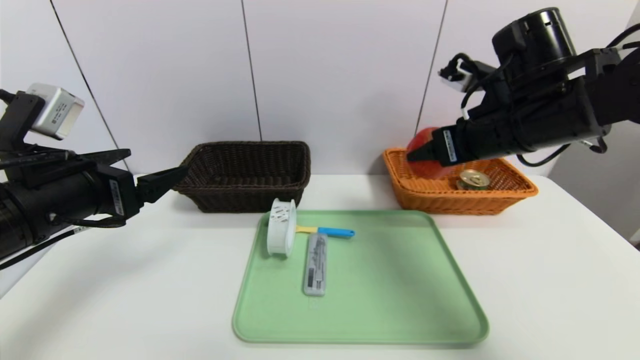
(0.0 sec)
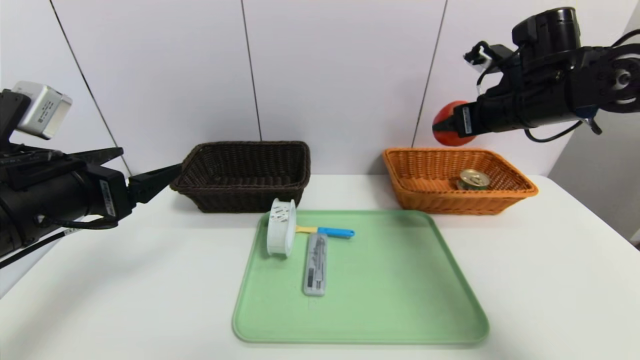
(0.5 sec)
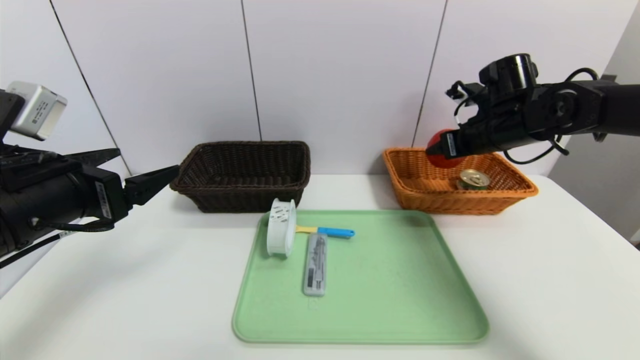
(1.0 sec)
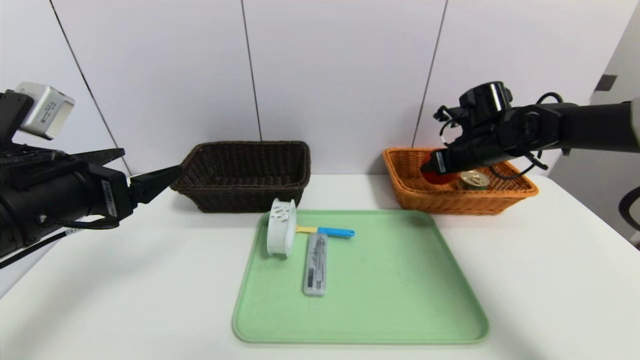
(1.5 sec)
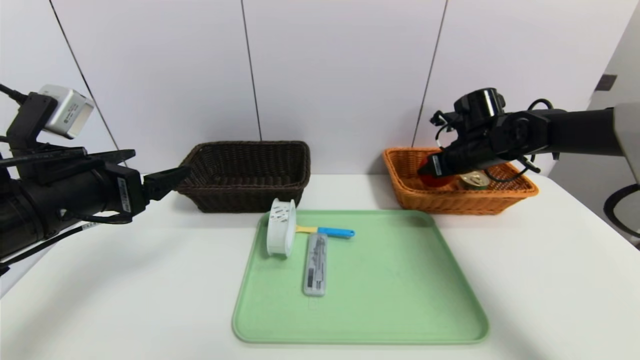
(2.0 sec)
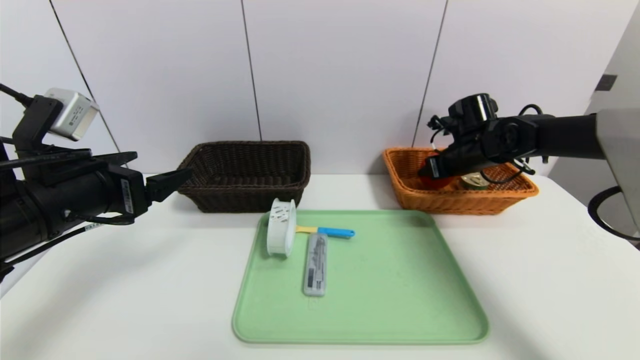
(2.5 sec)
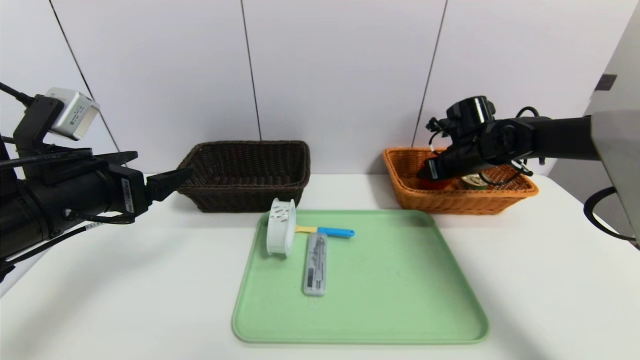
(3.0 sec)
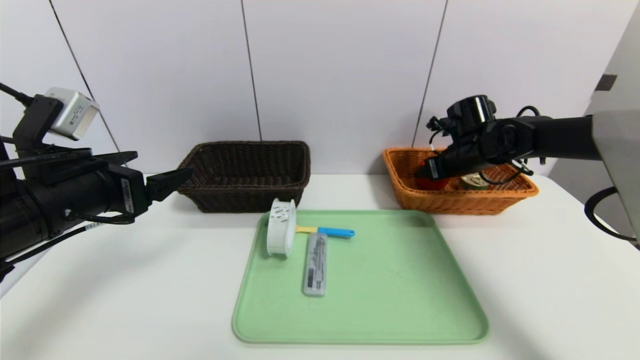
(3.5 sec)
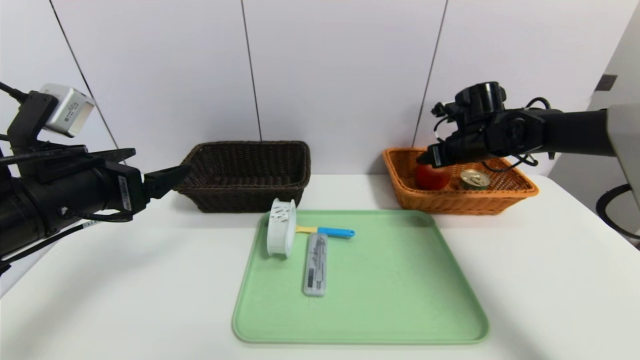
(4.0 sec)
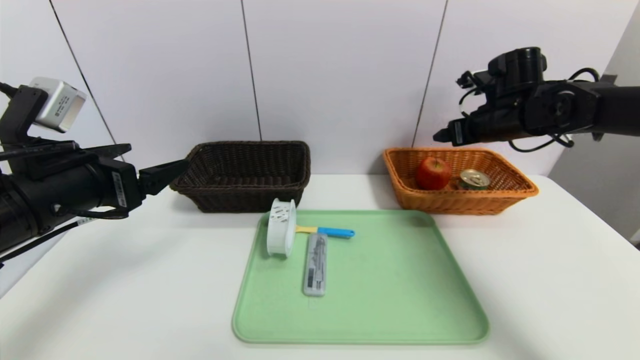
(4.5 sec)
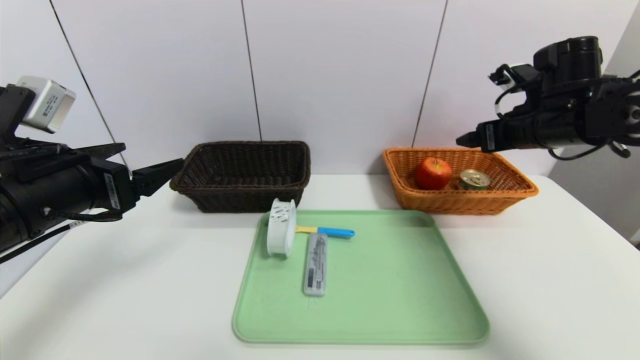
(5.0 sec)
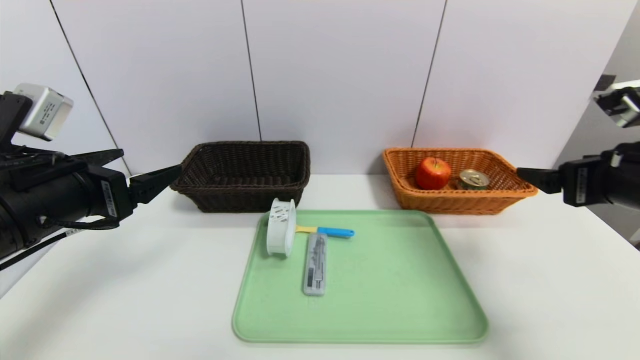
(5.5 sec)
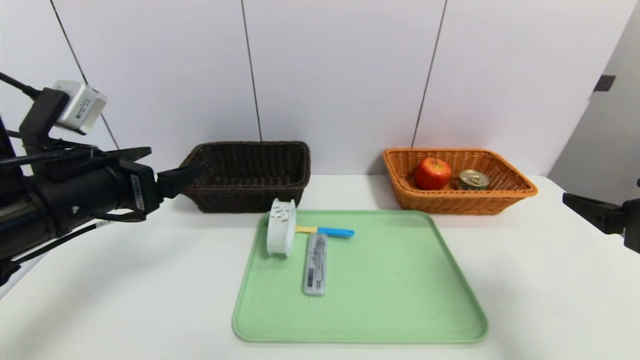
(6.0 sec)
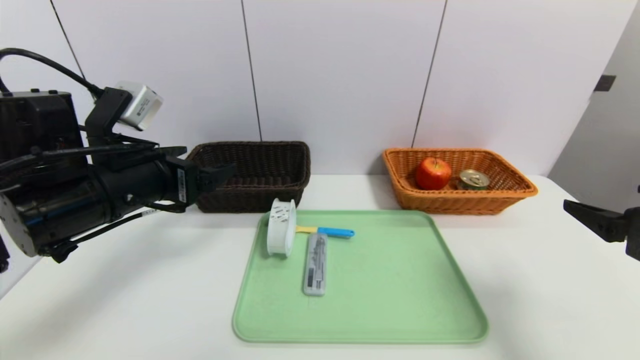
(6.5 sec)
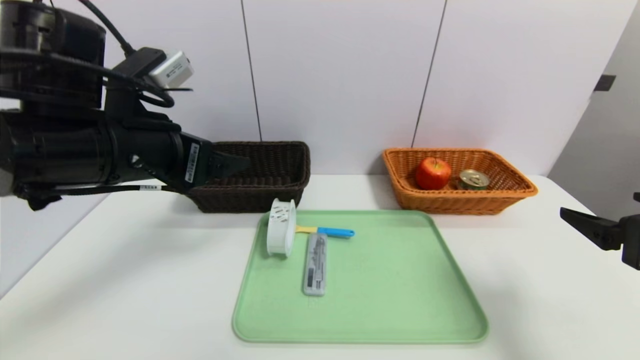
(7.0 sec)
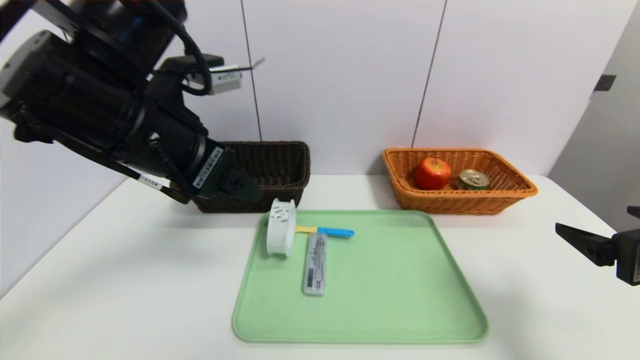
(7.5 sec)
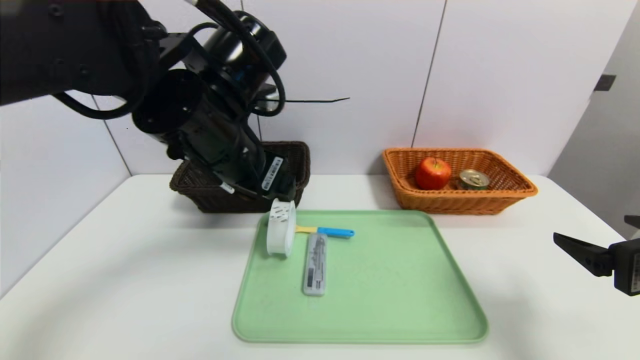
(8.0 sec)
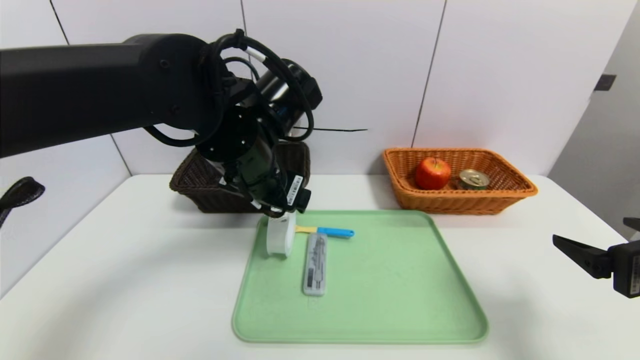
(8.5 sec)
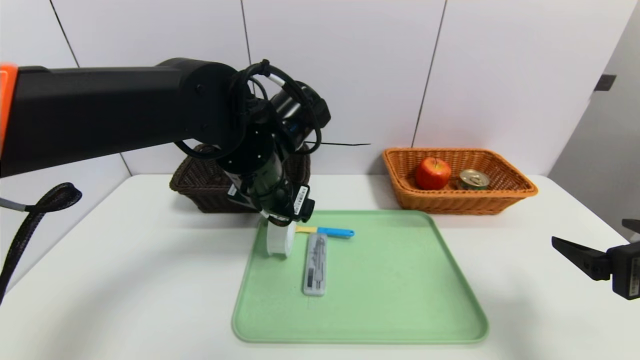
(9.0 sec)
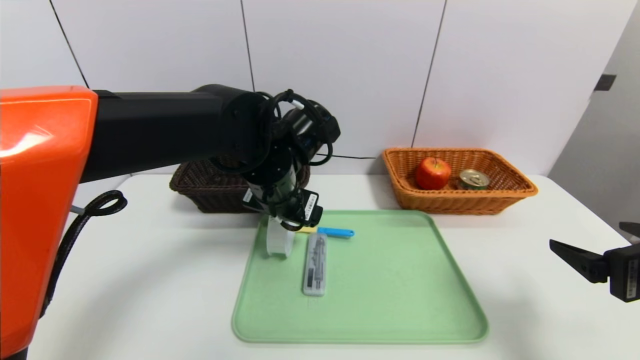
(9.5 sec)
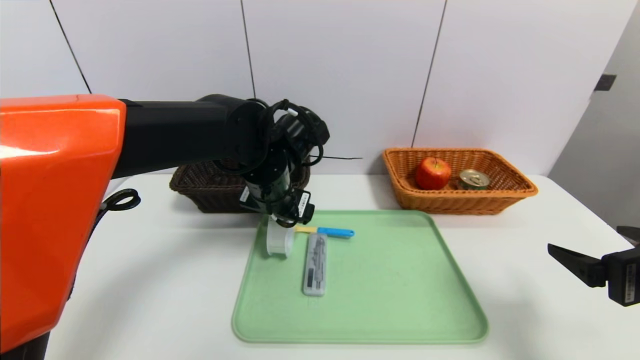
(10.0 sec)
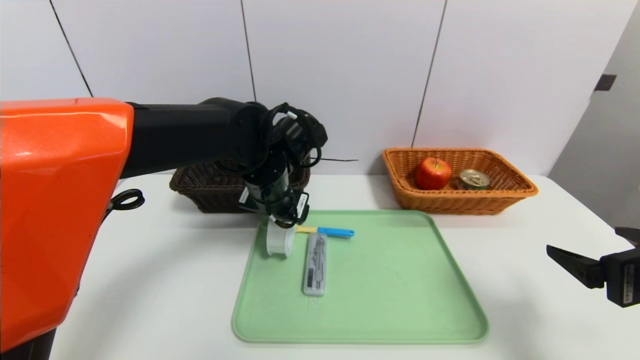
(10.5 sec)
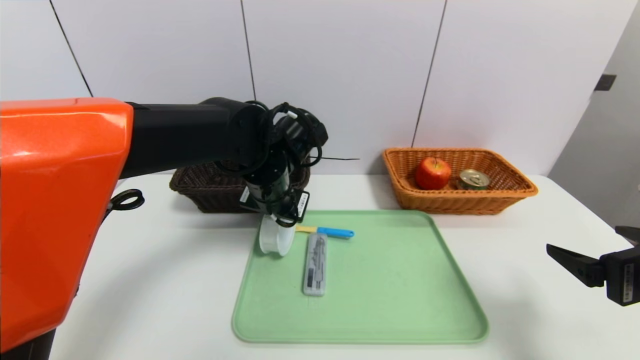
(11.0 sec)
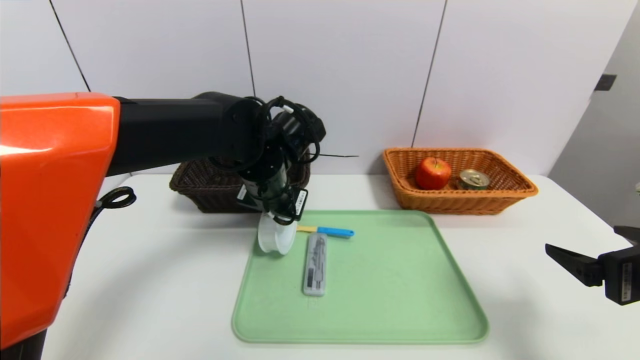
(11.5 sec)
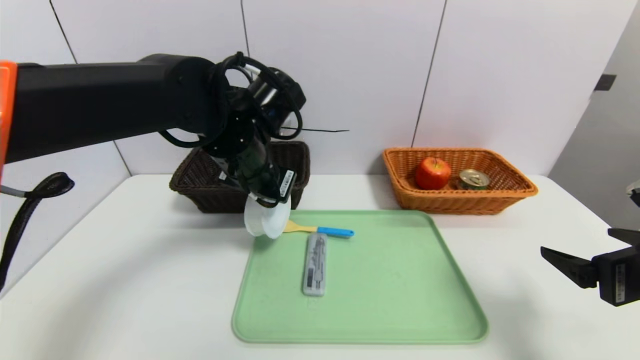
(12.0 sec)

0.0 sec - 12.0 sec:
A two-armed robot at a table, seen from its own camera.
Task of the whole recording: place the food in the right basket with the right gripper, and place the non food items in the left basket with the left gripper.
Step, 0.0 sec - 4.0 sec: Grasp the apple and put it in the right basket.
0.0 sec - 2.0 sec: The right gripper shifts approximately 20 cm forward, downward and to the right.
2.0 sec - 4.0 sec: The right gripper opens its fingers.
4.0 sec - 6.0 sec: The right gripper travels backward by some 30 cm.
6.0 sec - 8.0 sec: The left gripper is displaced to the right by some 15 cm.
8.0 sec - 10.0 sec: The left gripper travels downward and forward by approximately 10 cm.
10.0 sec - 12.0 sec: The left gripper moves about 5 cm, and closes its fingers.

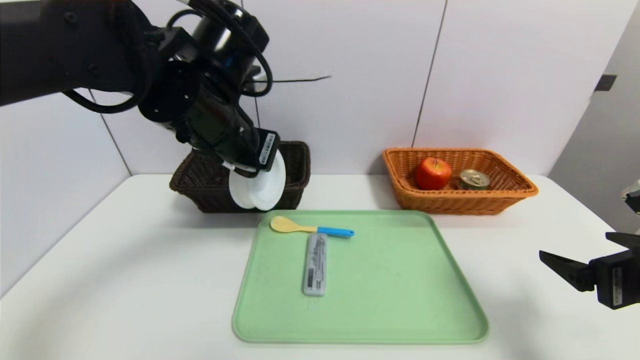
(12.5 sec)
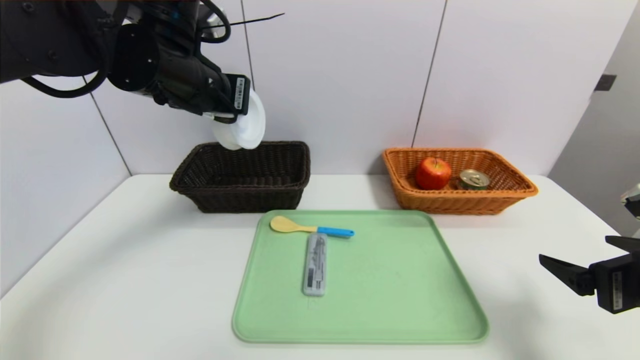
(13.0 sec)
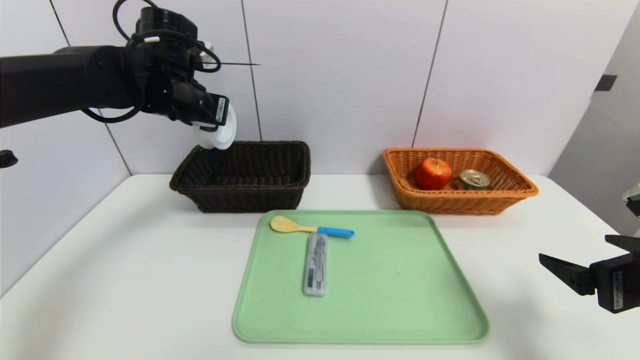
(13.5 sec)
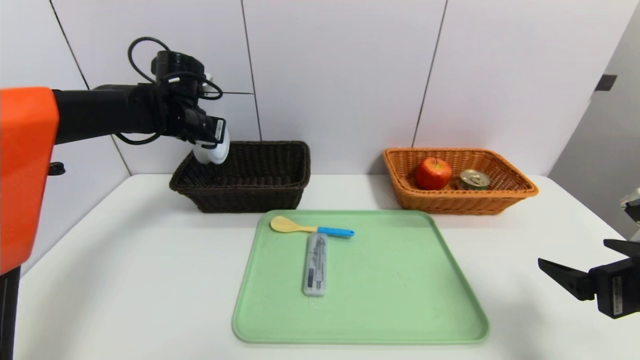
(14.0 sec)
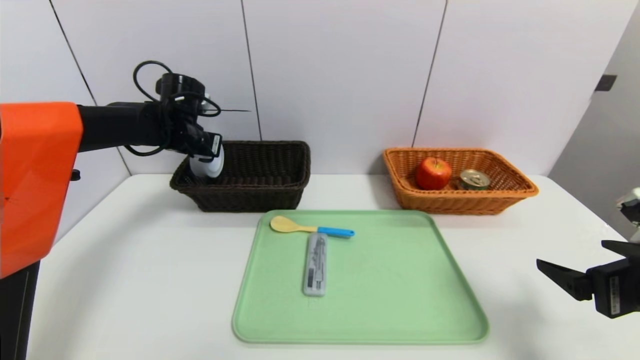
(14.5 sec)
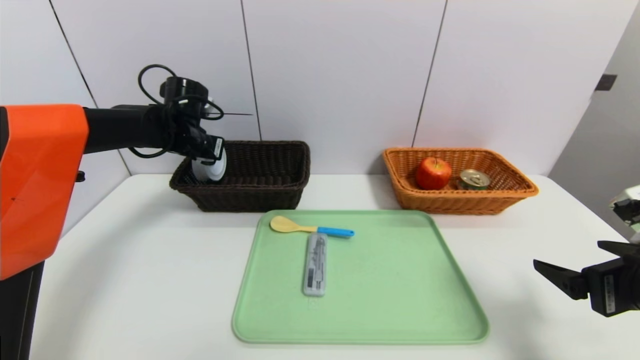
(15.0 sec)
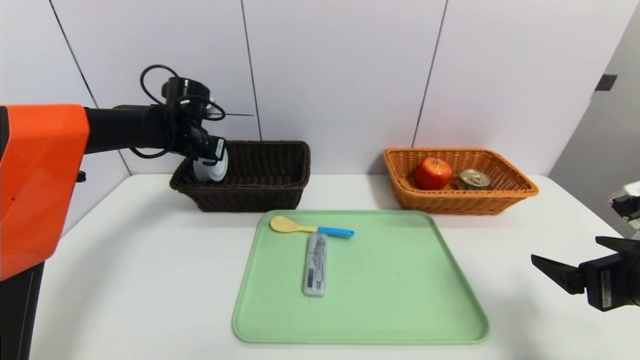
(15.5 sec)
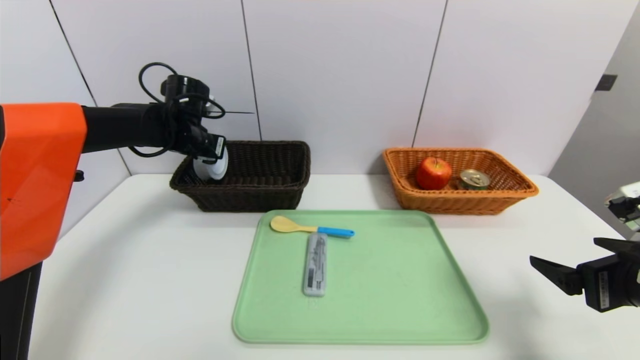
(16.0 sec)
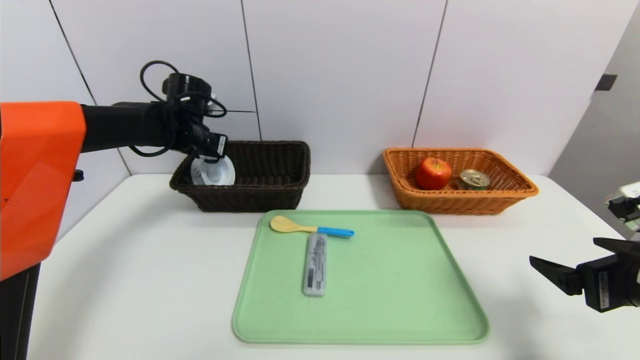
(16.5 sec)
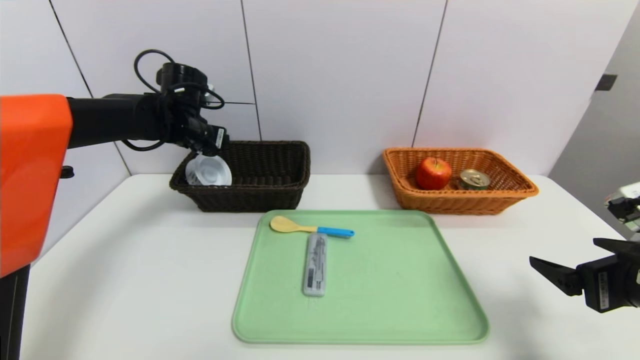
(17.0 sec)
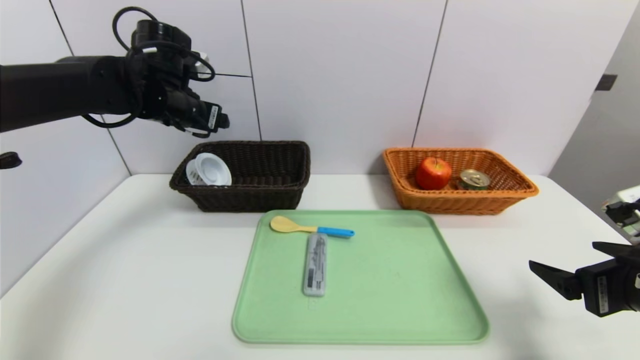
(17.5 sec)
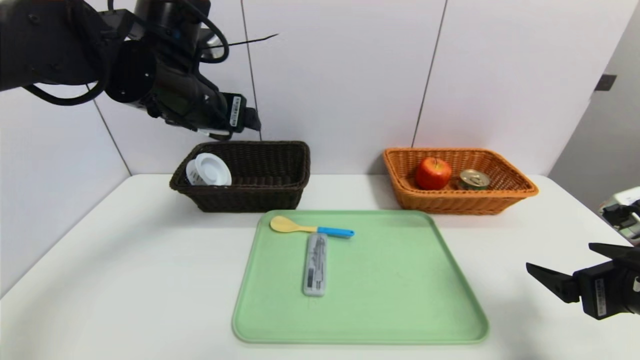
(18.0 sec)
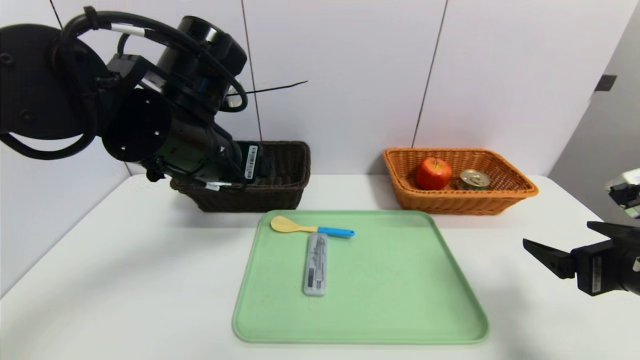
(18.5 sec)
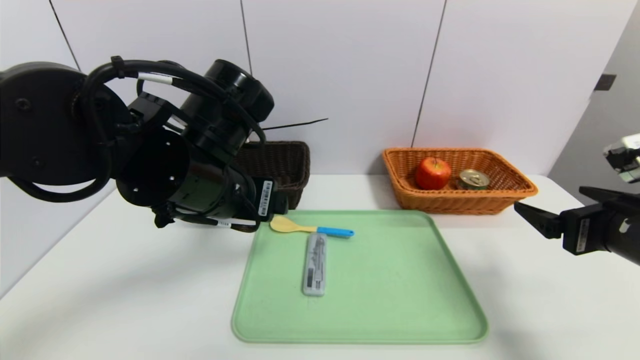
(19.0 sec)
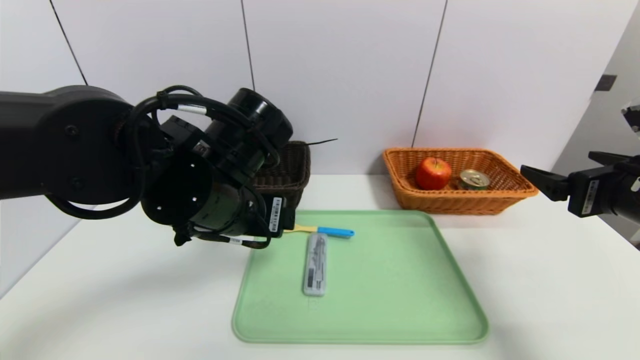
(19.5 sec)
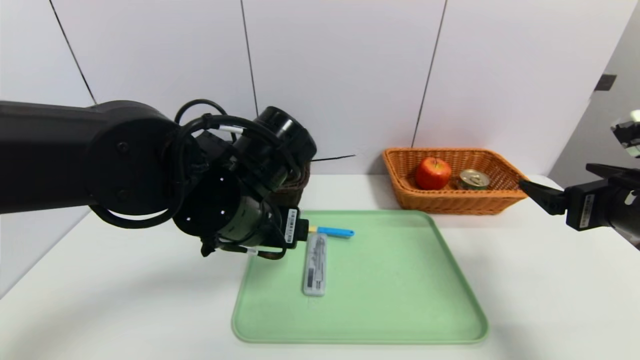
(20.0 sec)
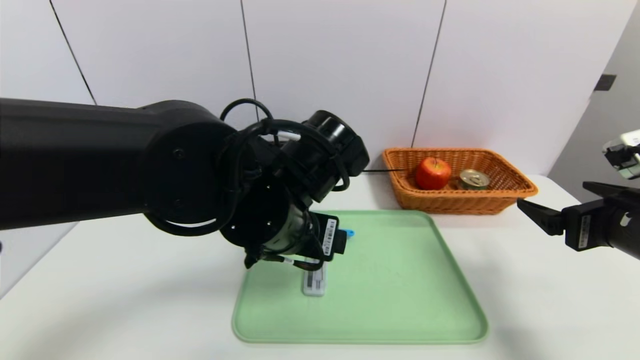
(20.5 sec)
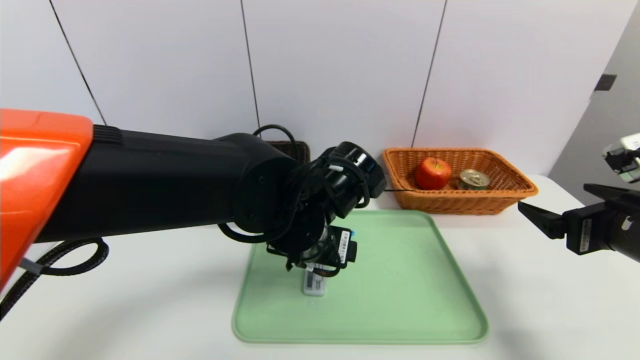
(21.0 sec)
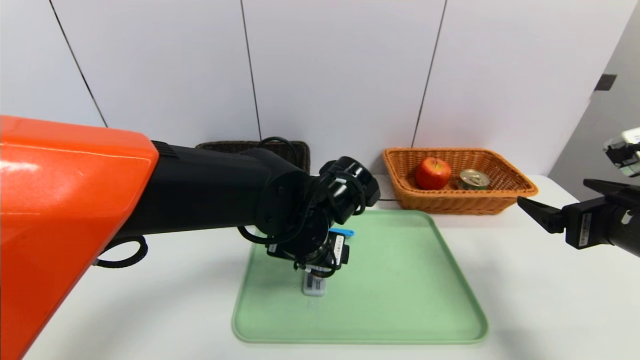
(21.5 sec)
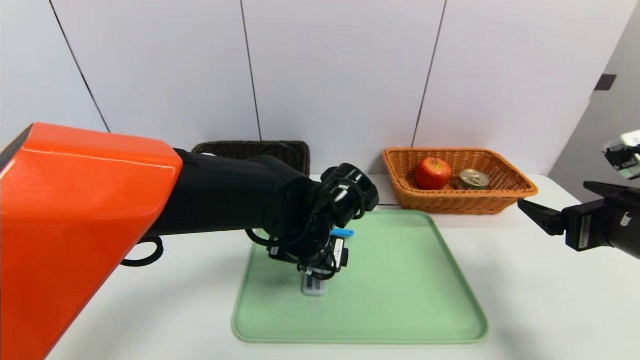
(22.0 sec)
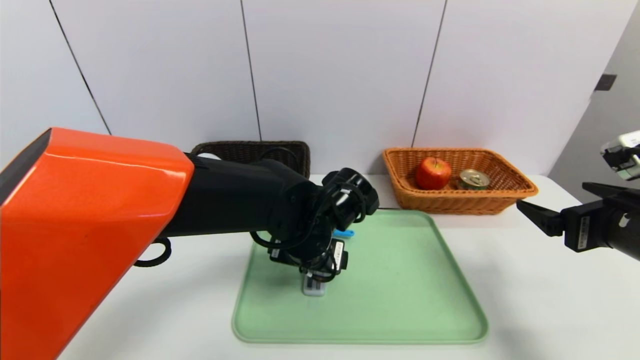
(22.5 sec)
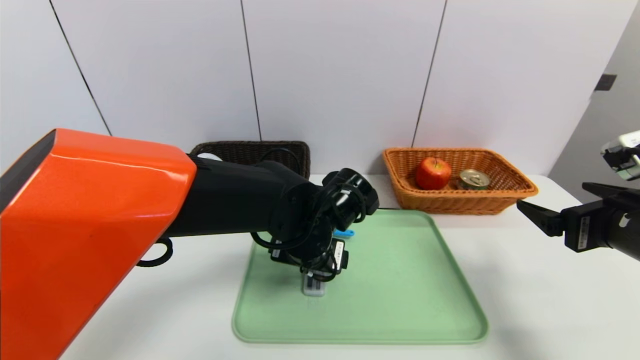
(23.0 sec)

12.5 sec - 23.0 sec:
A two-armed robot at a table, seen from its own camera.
Task of the whole recording: place the food in the right basket with the right gripper, and place the non food items in the left basket with the left gripper.
Step, 12.5 sec - 17.0 sec: Grasp the tape and put it in the left basket.
12.5 sec - 14.5 sec: The left gripper travels forward, to the left and downward by roughly 25 cm.
14.5 sec - 16.5 sec: The left gripper opens up.
16.5 sec - 19.0 sec: The left gripper travels backward and to the right by roughly 25 cm.
19.0 sec - 21.0 sec: The left gripper heads to the right and downward, covering some 10 cm.
21.0 sec - 23.0 sec: The left gripper moves some 5 cm.
